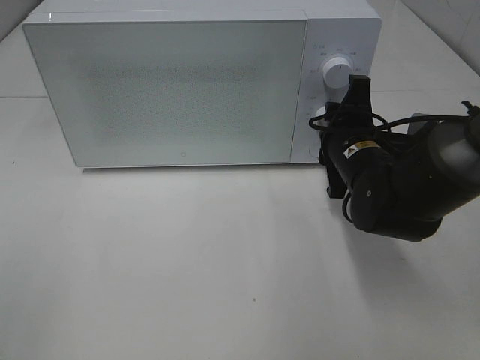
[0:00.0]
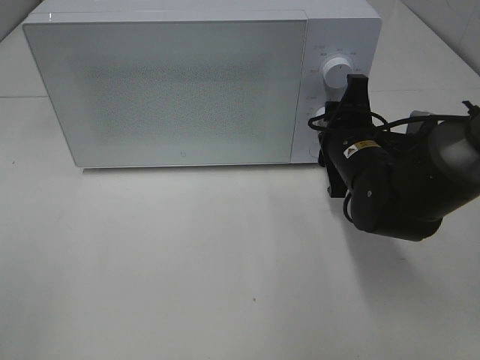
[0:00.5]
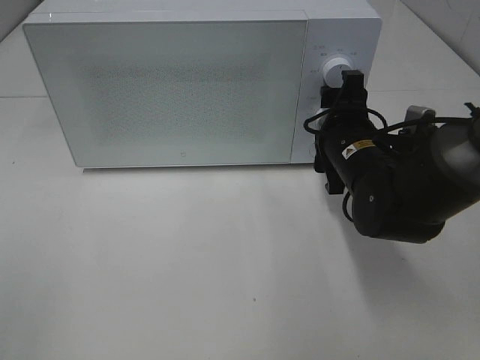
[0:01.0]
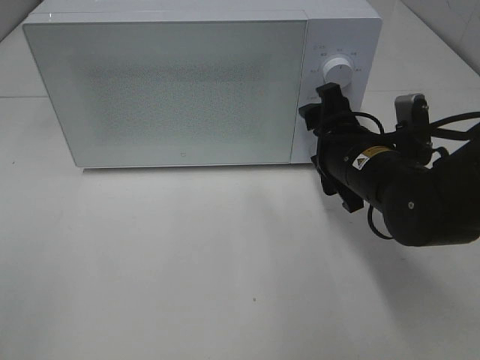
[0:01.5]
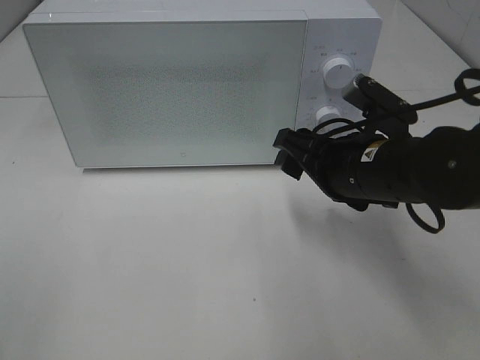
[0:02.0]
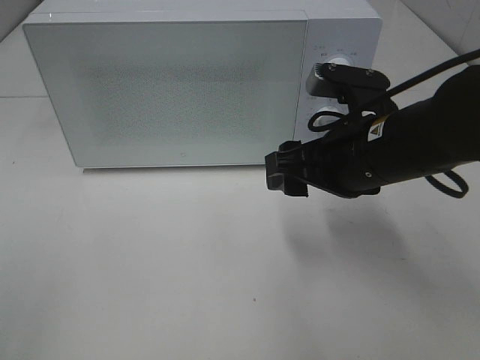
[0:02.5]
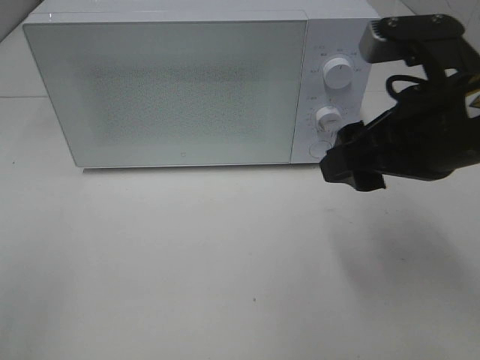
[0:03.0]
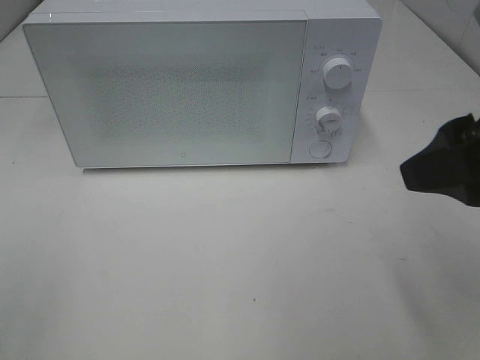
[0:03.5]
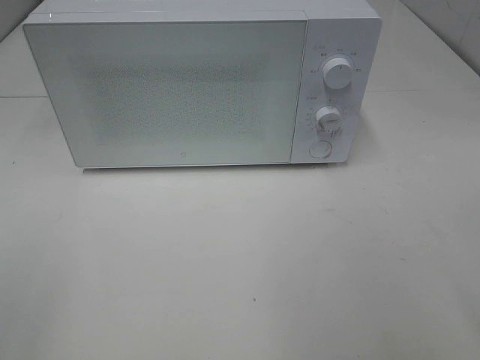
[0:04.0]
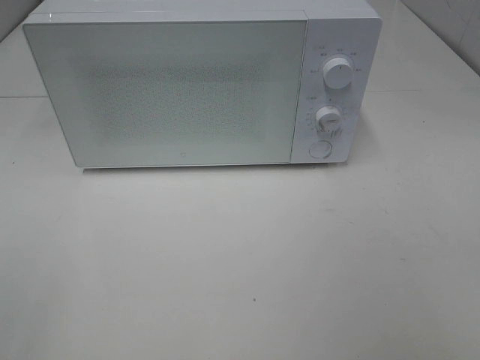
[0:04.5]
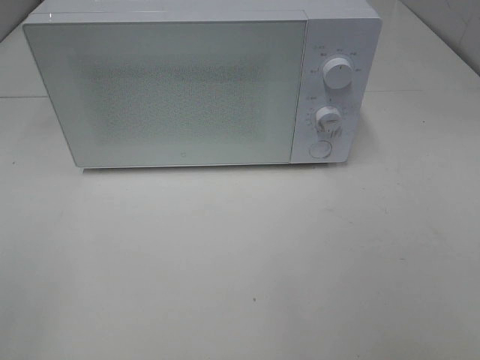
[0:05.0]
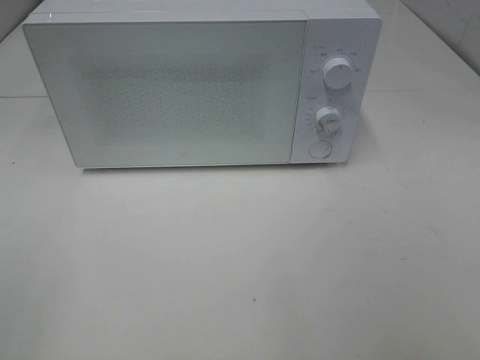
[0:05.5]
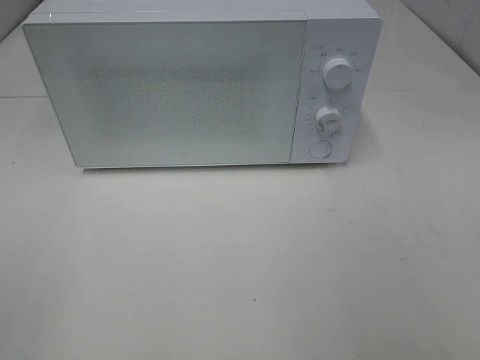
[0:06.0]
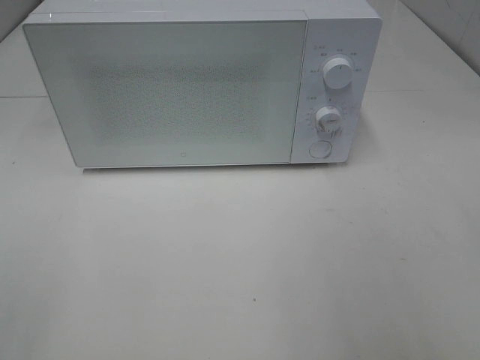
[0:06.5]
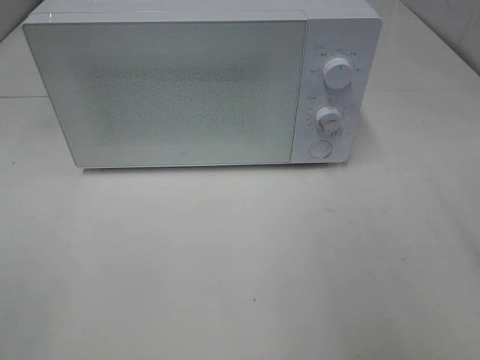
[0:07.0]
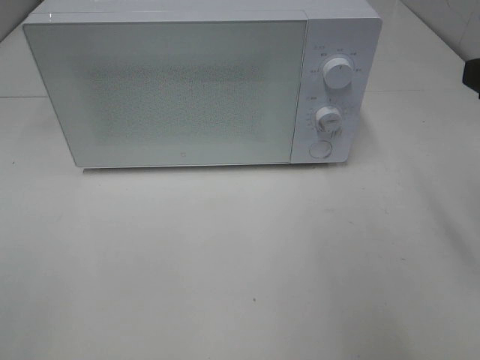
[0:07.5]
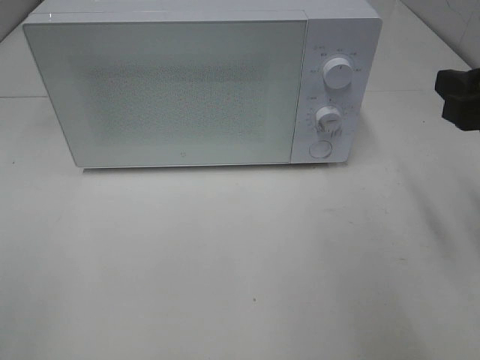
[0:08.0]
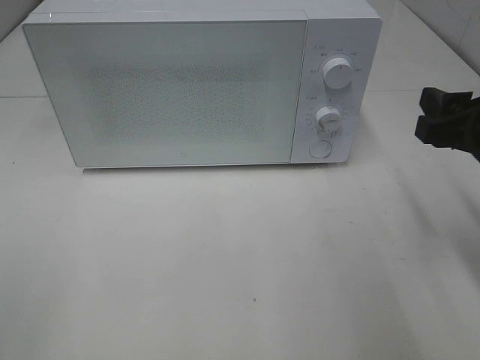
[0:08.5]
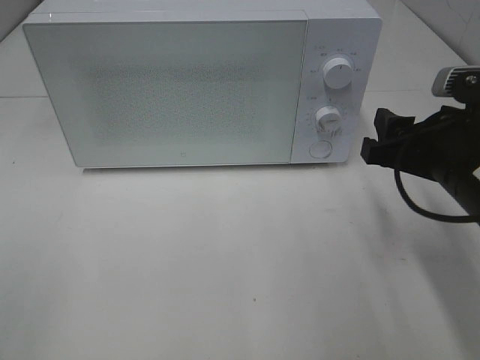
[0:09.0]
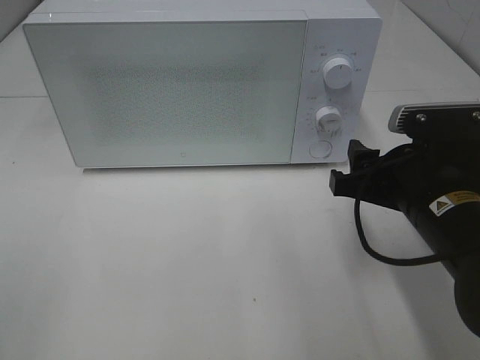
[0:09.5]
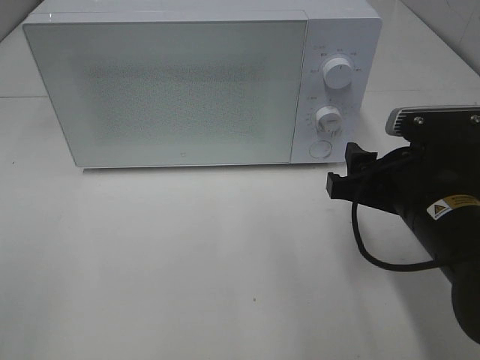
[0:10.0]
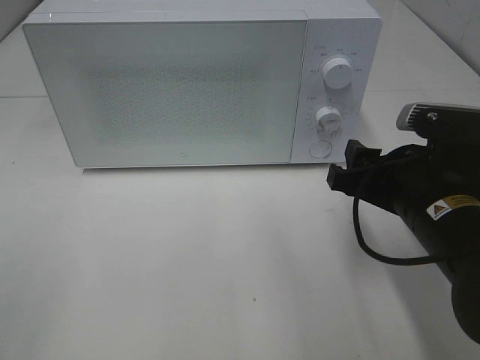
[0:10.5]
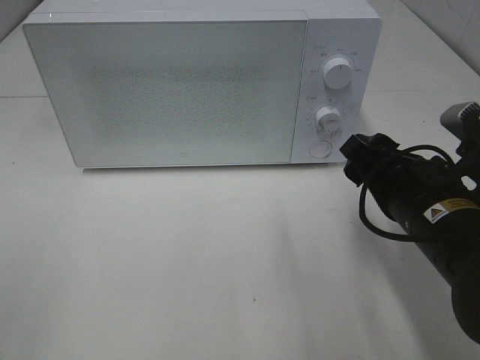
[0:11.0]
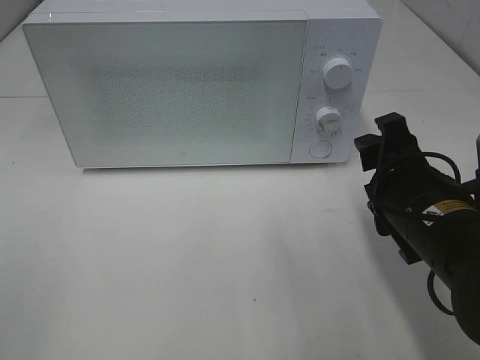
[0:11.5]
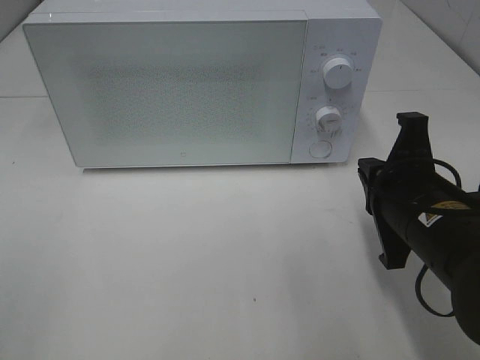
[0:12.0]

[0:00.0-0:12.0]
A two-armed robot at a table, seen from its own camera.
Task of the whole recording: Heat Sandwich.
0.0 to 2.0 s: The right gripper goes some 5 cm backward, and opens its fingers.
2.0 to 4.0 s: The right gripper heads backward, upward and to the right, covering approximately 25 cm.
6.0 to 8.0 s: The right gripper goes approximately 20 cm forward.
8.0 to 10.0 s: The right gripper shifts roughly 15 cm to the left and downward.
10.0 to 12.0 s: The right gripper closes its fingers.

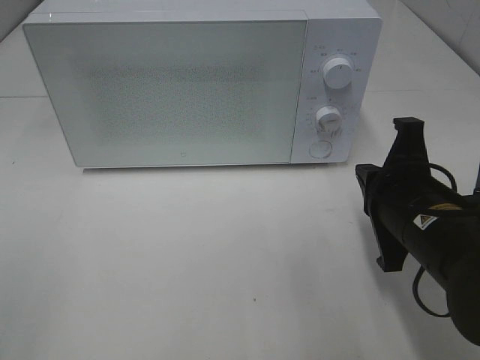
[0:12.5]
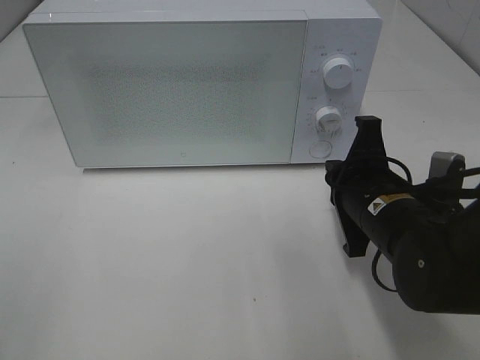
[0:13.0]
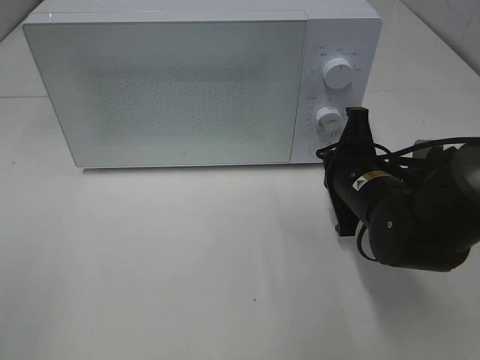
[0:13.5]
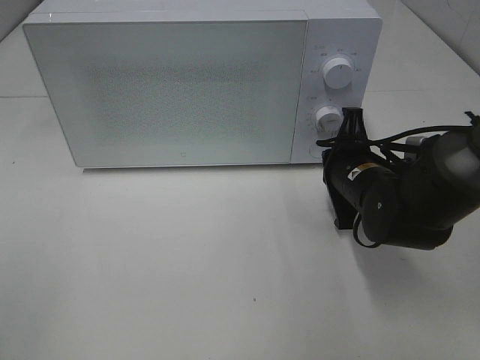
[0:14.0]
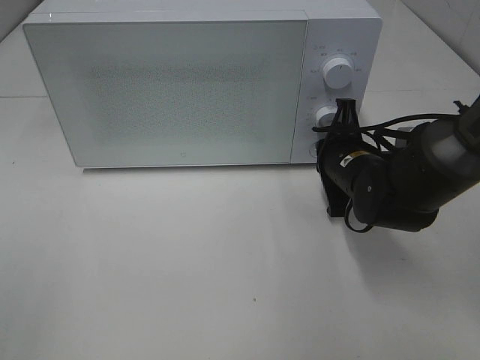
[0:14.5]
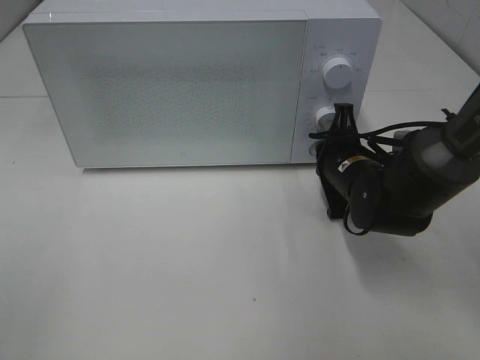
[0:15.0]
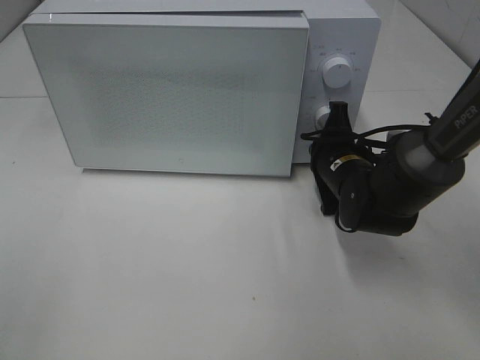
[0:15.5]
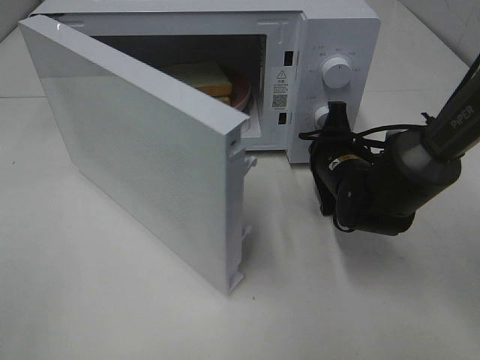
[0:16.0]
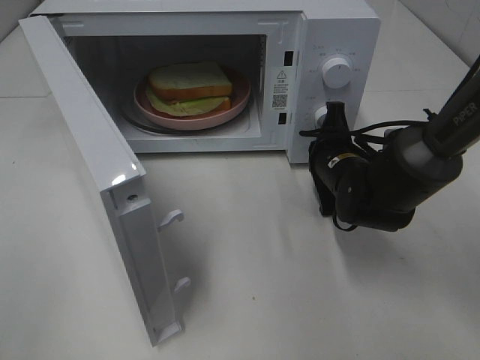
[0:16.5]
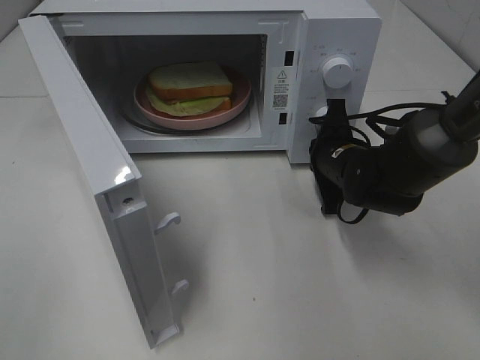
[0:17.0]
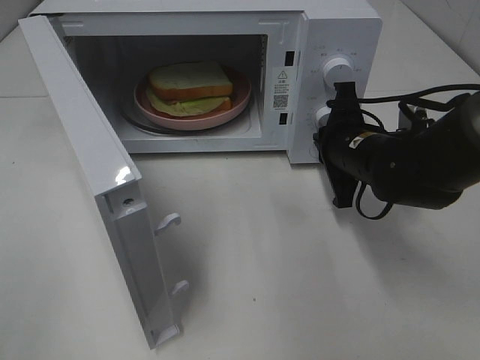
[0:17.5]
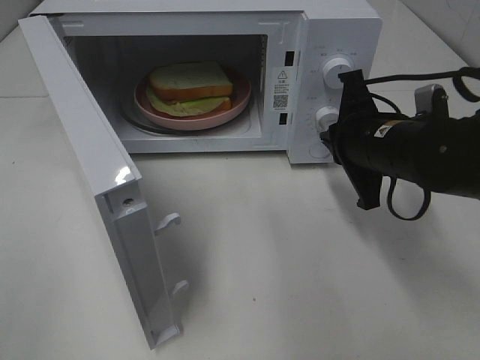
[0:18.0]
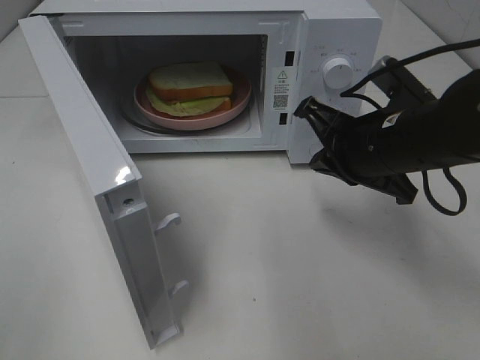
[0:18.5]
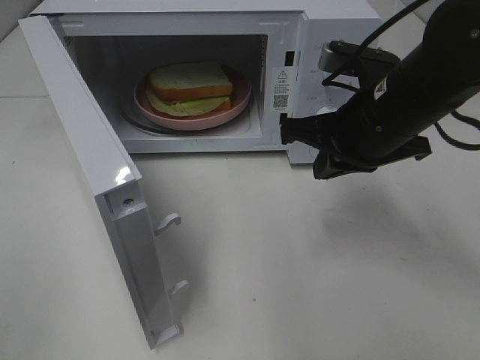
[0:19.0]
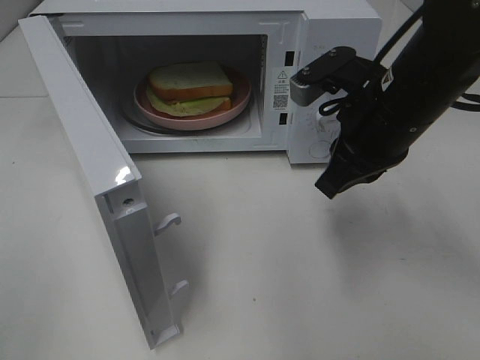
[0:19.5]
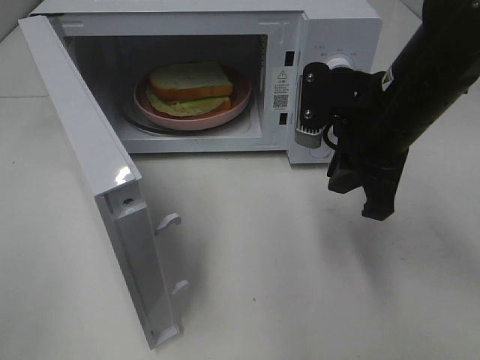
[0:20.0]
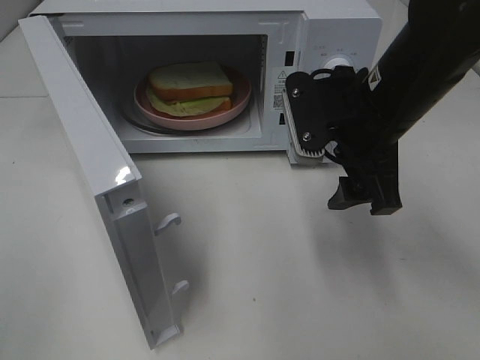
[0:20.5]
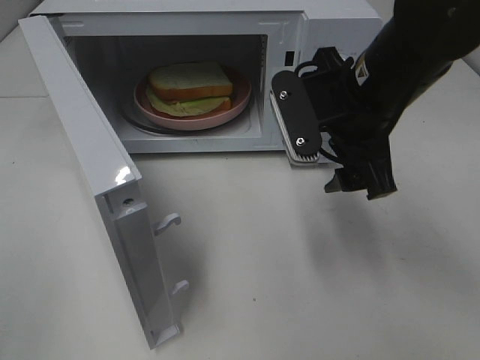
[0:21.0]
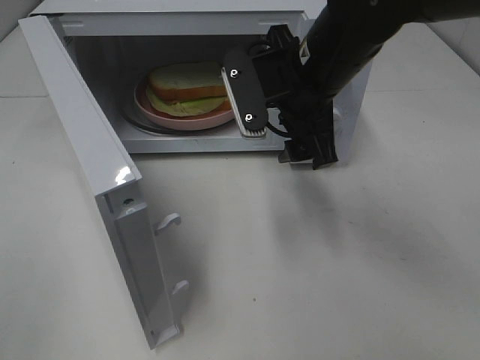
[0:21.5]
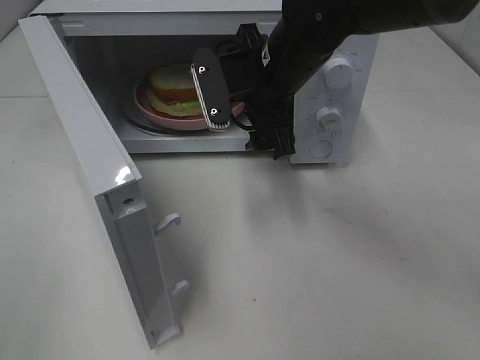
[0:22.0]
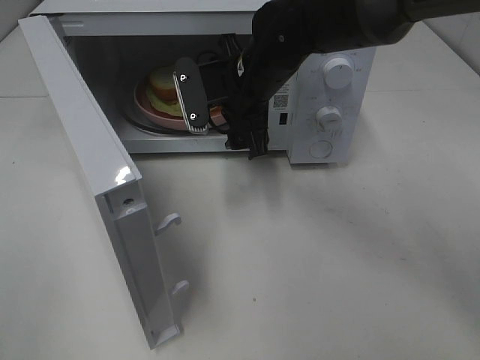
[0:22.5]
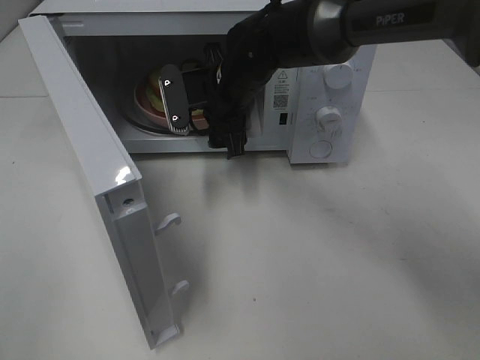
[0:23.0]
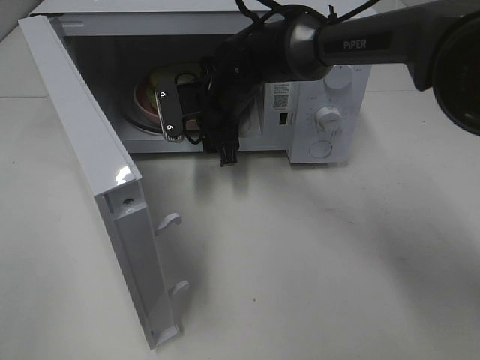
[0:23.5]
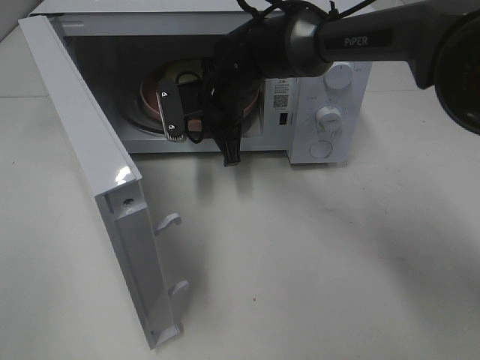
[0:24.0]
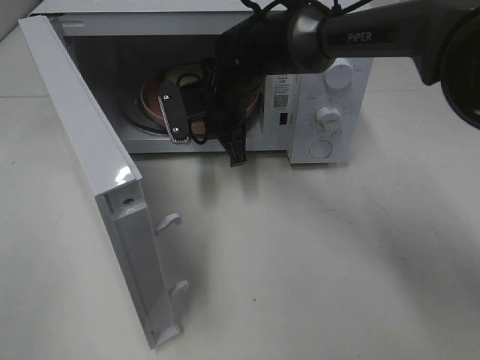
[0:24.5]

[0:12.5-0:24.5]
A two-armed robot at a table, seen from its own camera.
Task of the whole recording: Heat Sandwich.
Step, 12.5 to 17.0 s: Right hand: press the switch.
Step, 17.5 to 24.0 s: Right hand: grab the plate with the sandwich.
12.5 to 14.5 s: The right gripper moves forward, about 15 cm.
16.5 to 18.5 s: The right gripper moves upward and backward, some 15 cm.
18.5 to 20.5 s: The right gripper ends up approximately 5 cm from where it was, and opens up.
20.5 to 22.5 s: The right gripper heads to the left and forward, covering about 15 cm.
22.5 to 24.5 s: The right gripper shifts by some 5 cm, and closes its fingers.

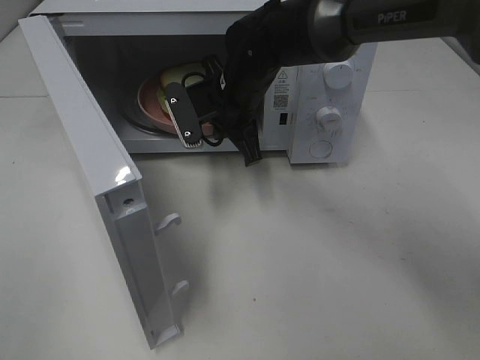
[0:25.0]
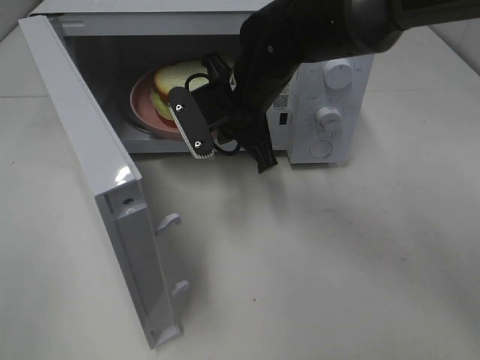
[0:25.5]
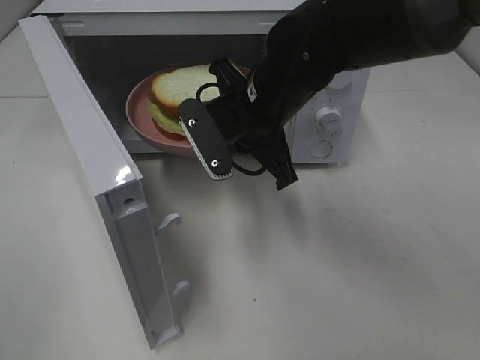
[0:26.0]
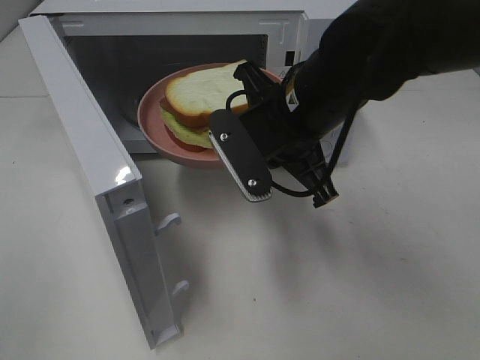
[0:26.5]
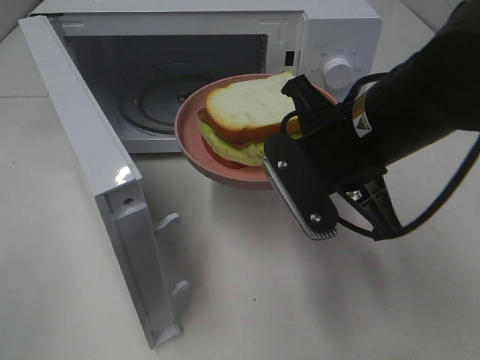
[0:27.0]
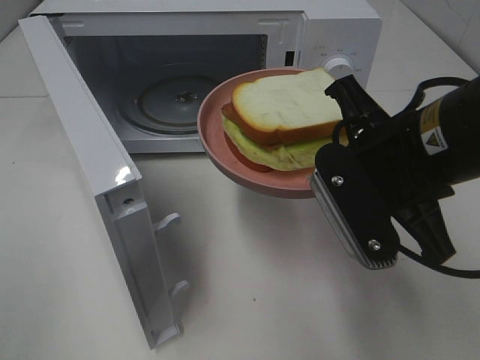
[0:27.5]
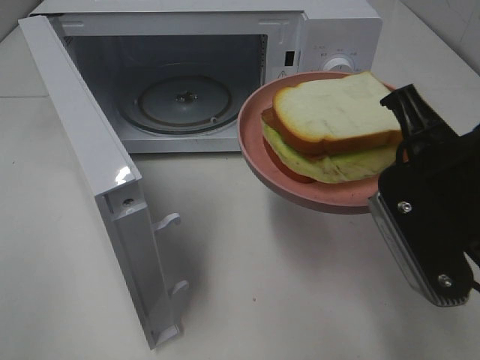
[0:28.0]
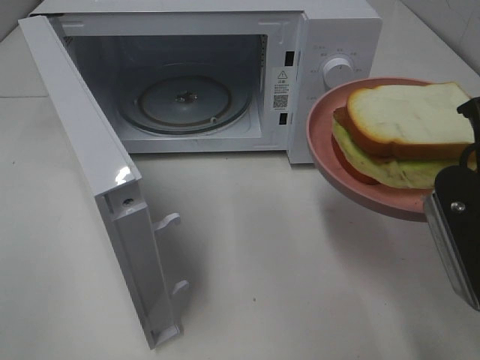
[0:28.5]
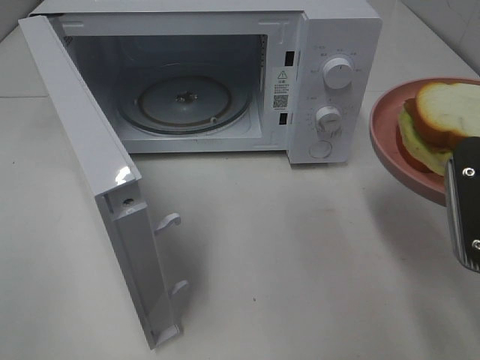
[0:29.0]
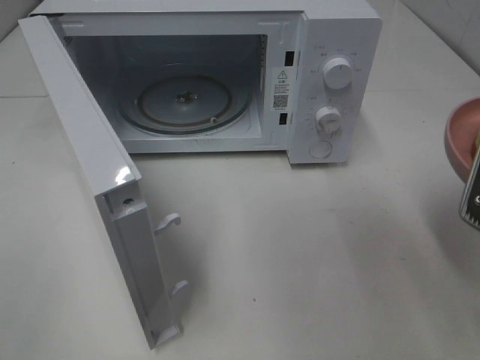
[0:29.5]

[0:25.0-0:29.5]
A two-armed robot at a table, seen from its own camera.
Task of the whole recording: Heat Sandwich.
25.0 to 27.0 s: The right gripper moves backward and to the right, roughly 20 cm.
27.0 to 29.5 s: The right gripper is displaced to the right and backward by about 15 cm.
